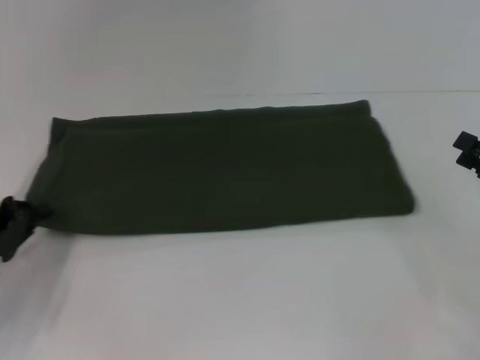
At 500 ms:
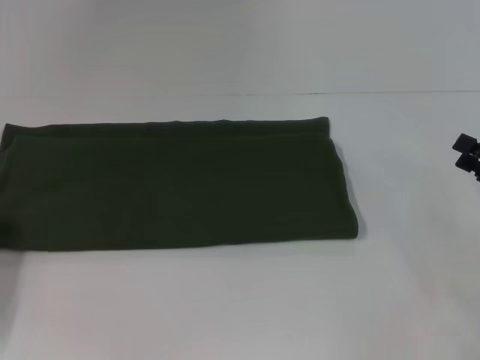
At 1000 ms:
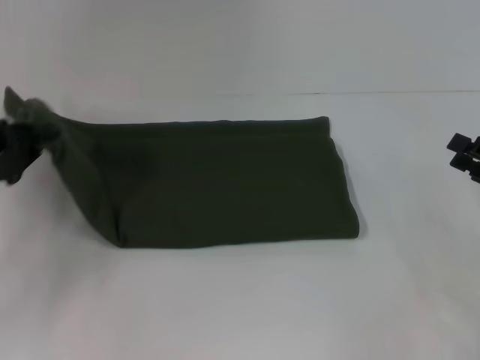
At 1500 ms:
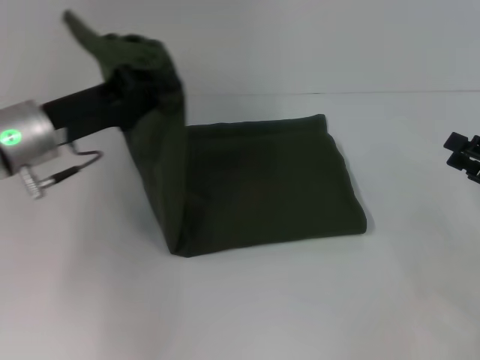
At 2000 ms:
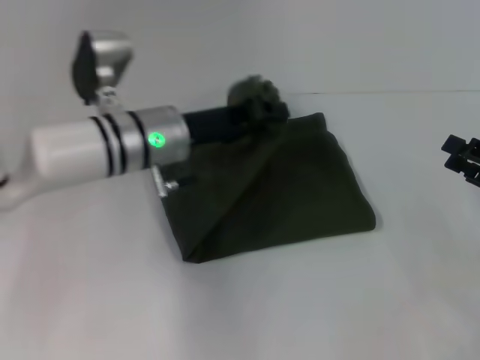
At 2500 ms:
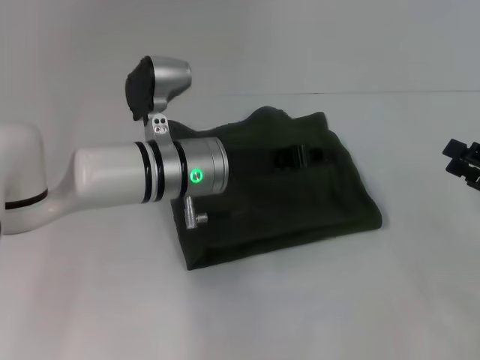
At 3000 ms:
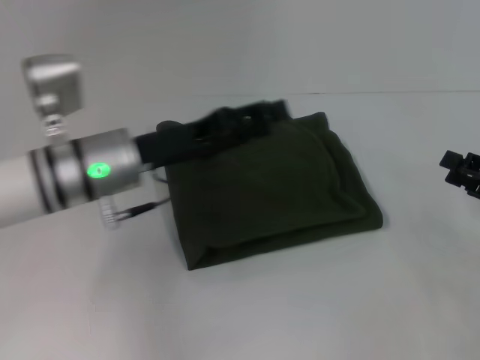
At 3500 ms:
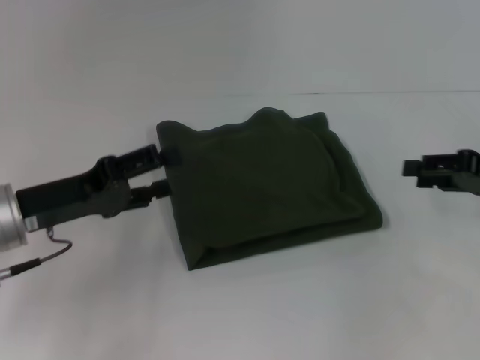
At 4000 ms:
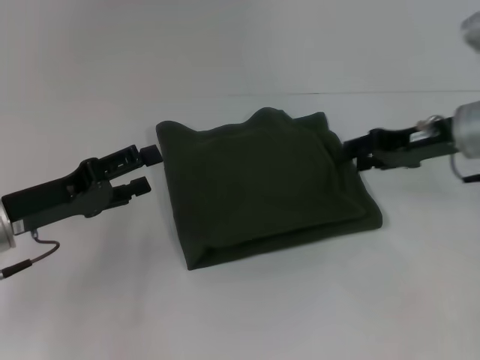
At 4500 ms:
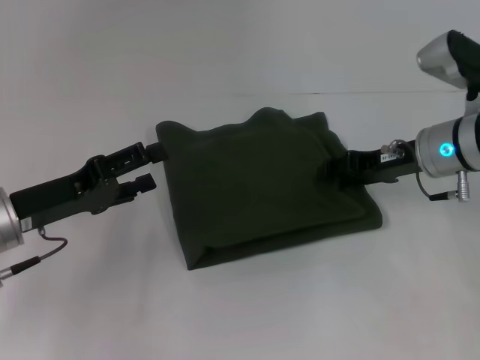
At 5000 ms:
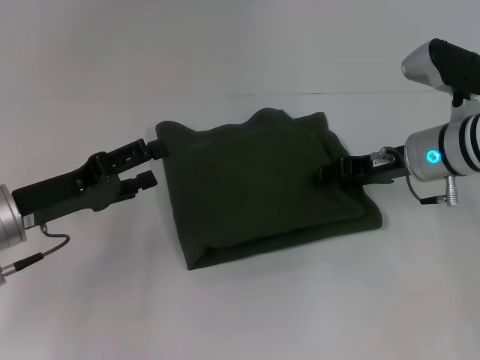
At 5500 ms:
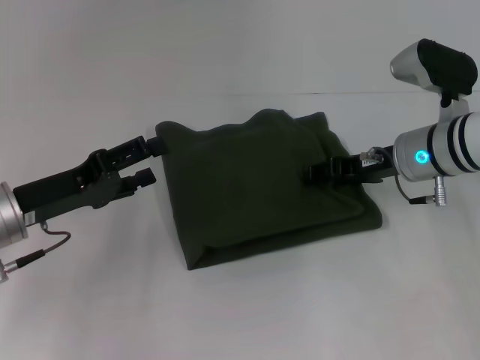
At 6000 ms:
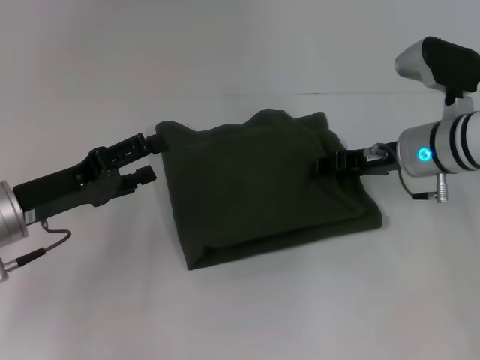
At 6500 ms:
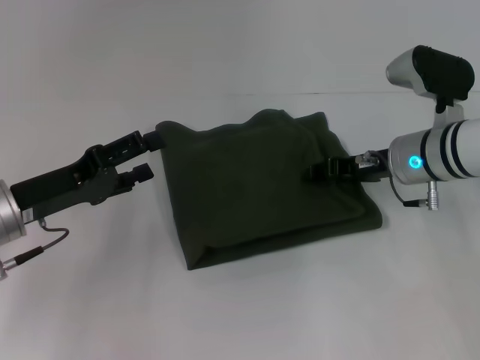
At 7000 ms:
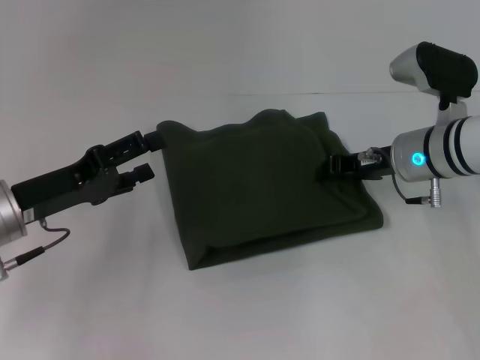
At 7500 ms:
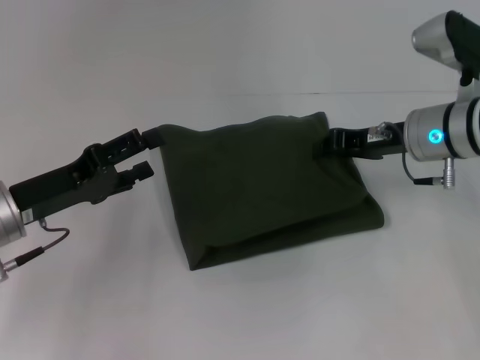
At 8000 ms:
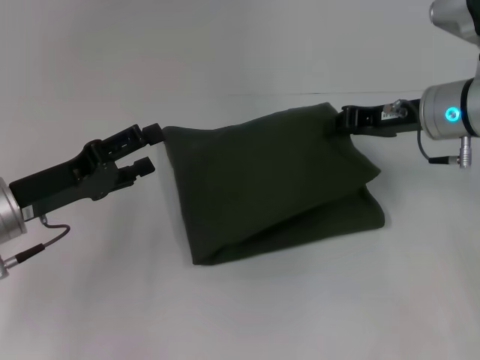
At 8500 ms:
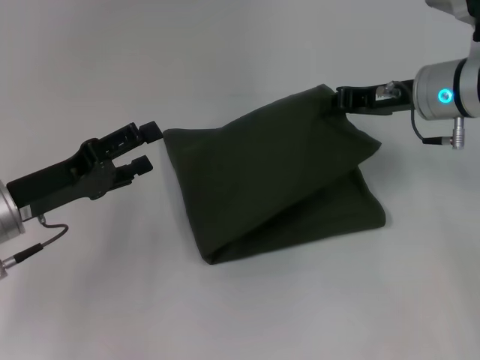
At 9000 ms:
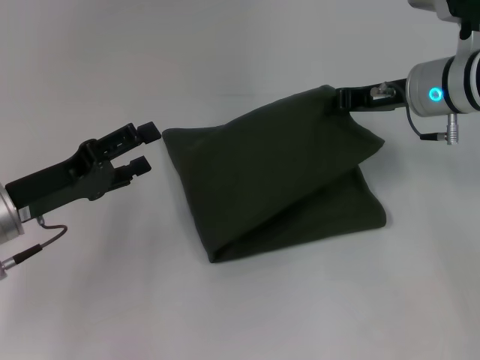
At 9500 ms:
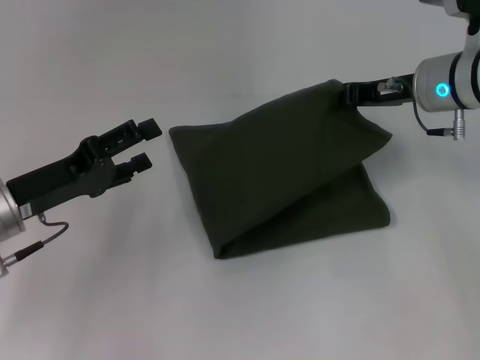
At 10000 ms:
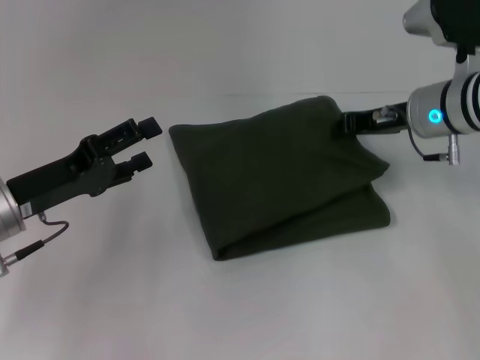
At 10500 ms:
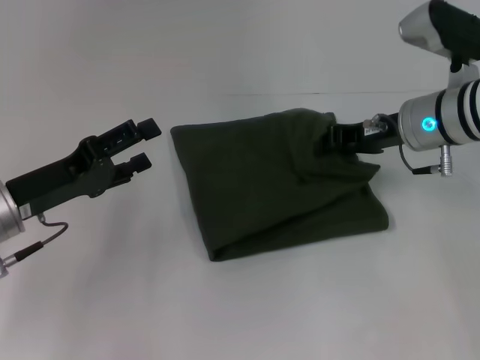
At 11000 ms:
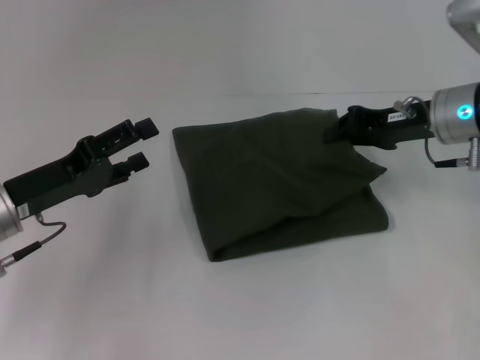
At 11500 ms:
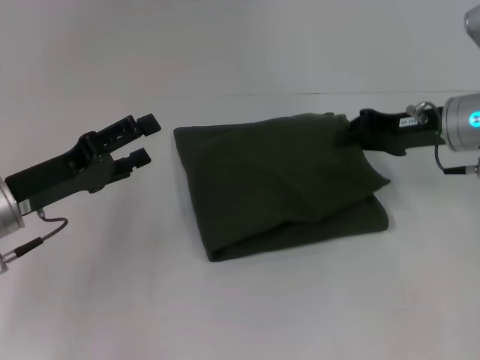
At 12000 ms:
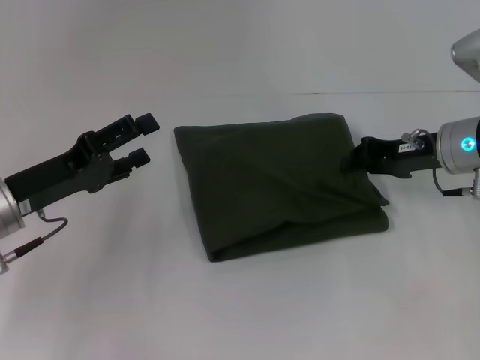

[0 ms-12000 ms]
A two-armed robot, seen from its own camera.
Step, 0 ms to 2500 ms: Fold the clothes with your left hand.
0 ms to 2000 ms: The left gripper is displaced to the right and forward by about 25 cm.
2000 ms to 4000 ms: The right gripper is displaced forward, to the left and upward by approximately 15 cm. The left gripper goes approximately 20 cm to the left and backward, and opens up.
4000 ms to 6000 ms: The right gripper changes place by about 5 cm.
6000 ms to 8000 ms: The right gripper shifts some 5 cm upward, and closes its fingers.
8000 ms to 10000 ms: The grippers make only small movements.

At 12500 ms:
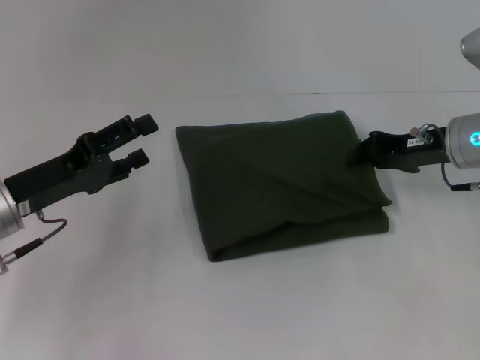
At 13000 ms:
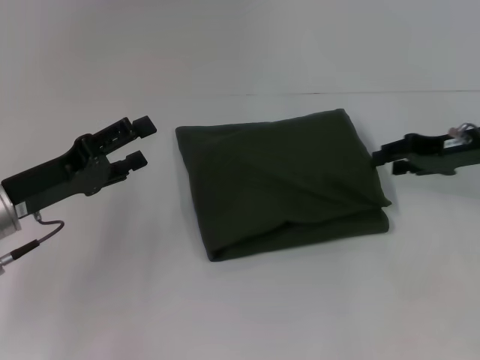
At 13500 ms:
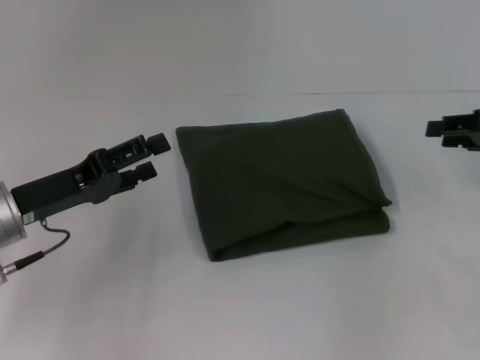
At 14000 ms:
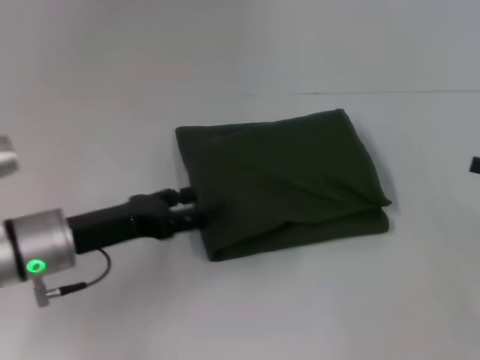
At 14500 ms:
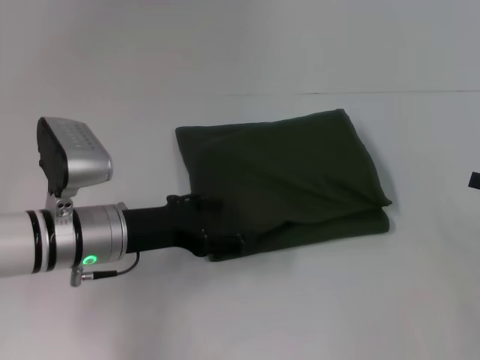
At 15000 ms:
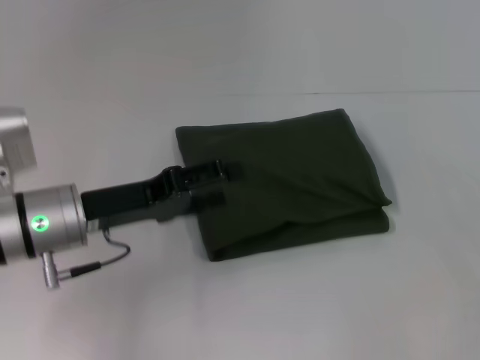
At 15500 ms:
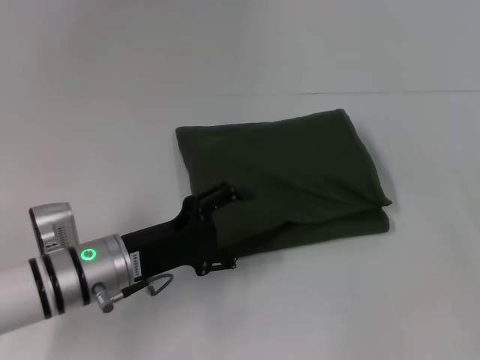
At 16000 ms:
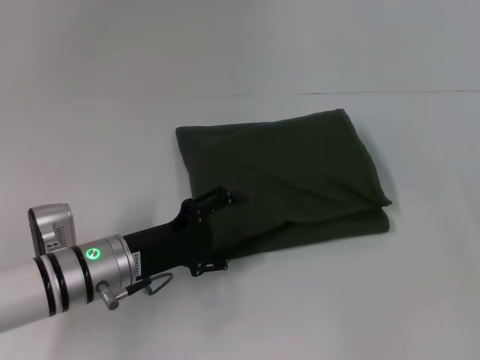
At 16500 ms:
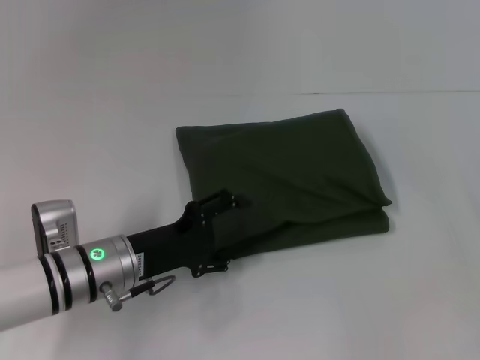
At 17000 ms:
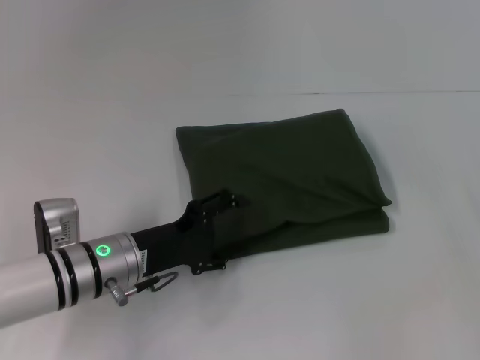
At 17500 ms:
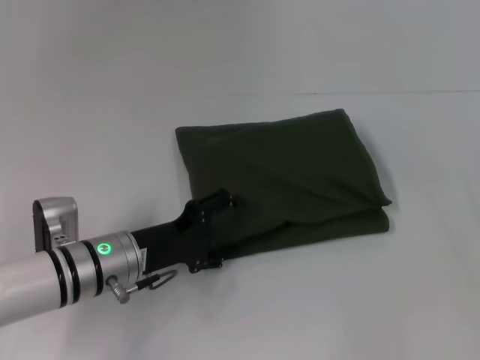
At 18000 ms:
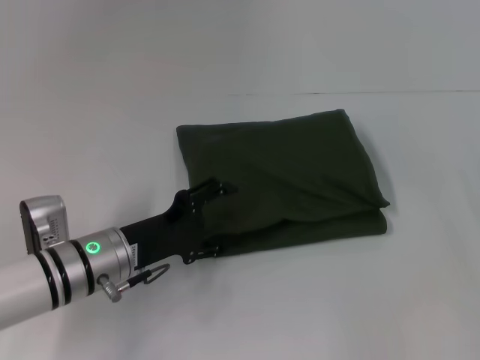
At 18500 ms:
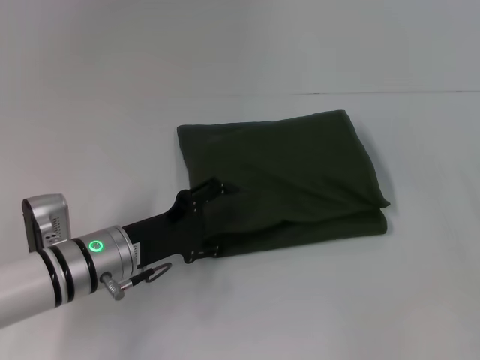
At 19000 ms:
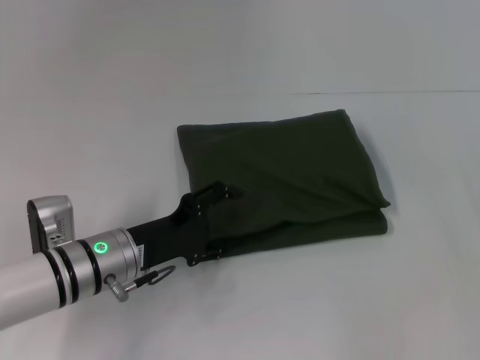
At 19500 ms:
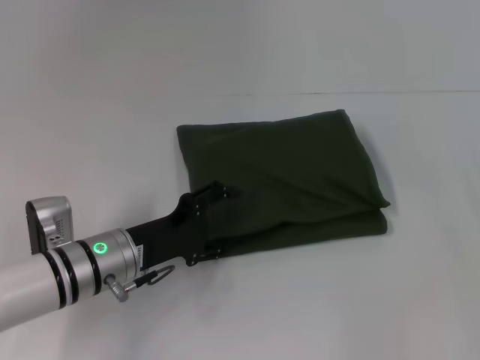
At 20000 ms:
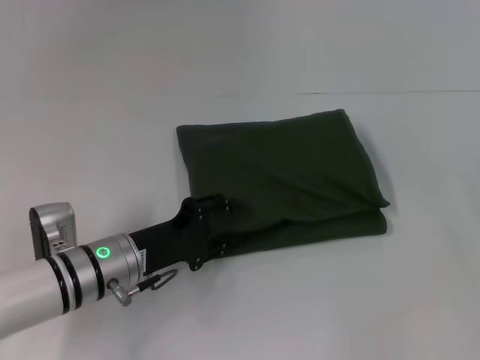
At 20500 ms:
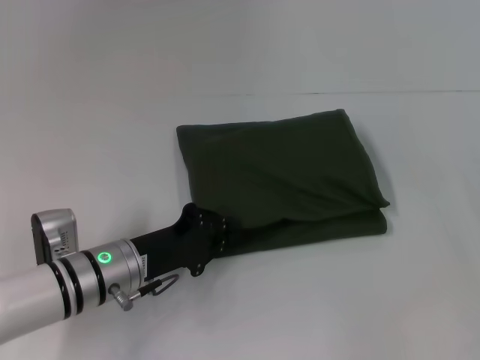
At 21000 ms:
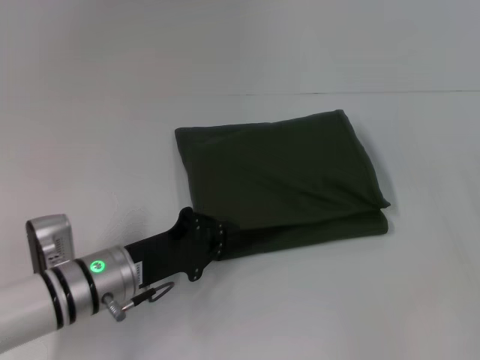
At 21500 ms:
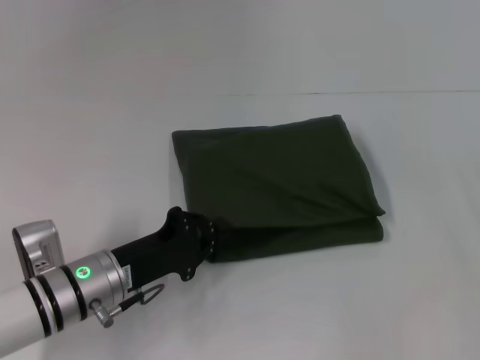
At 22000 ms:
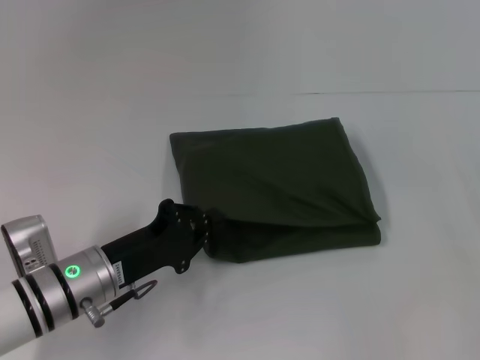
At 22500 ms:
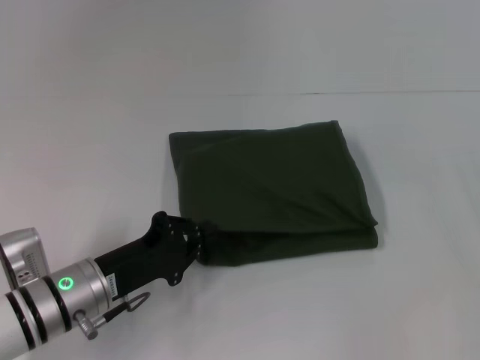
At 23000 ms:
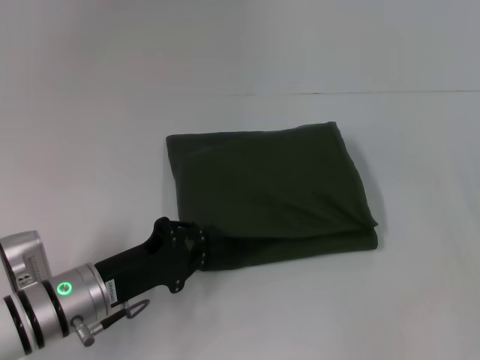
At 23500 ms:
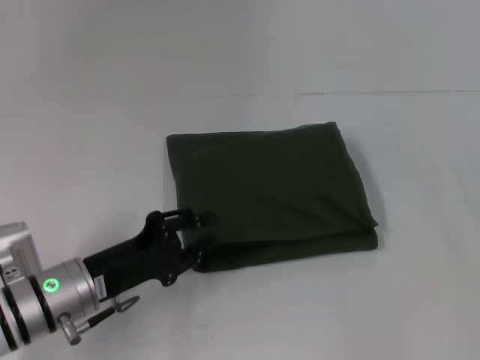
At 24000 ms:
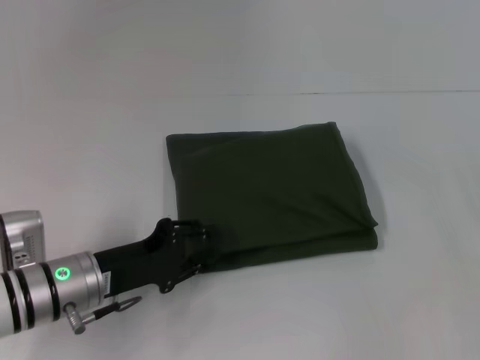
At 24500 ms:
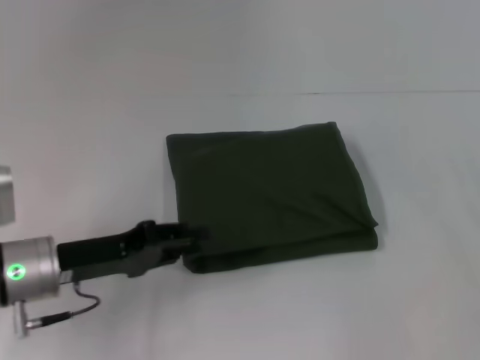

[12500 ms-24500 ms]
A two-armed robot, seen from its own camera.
12500 ms to 14500 ms: The left gripper heads to the right, covering some 10 cm. The right gripper goes approximately 20 cm to the right and backward, and opens its fingers.
16500 ms to 18500 ms: The grippers make only small movements.
18500 ms to 20500 ms: The left gripper closes.
20500 ms to 22500 ms: There are only small adjustments of the grippers.
22500 ms to 24500 ms: The left gripper moves upward, about 5 cm, and opens.

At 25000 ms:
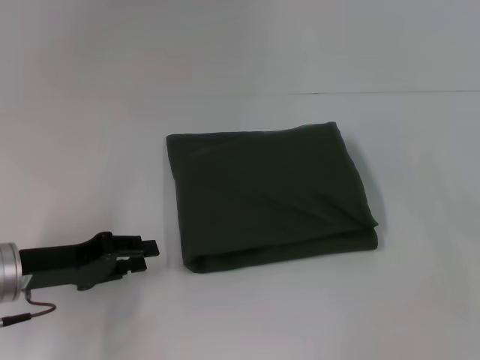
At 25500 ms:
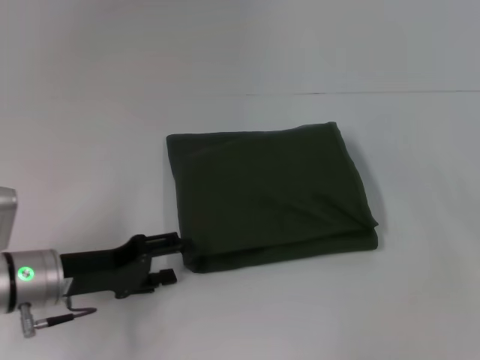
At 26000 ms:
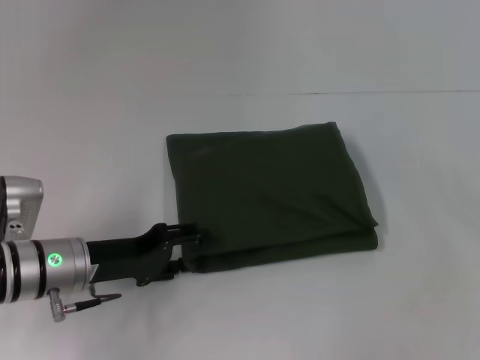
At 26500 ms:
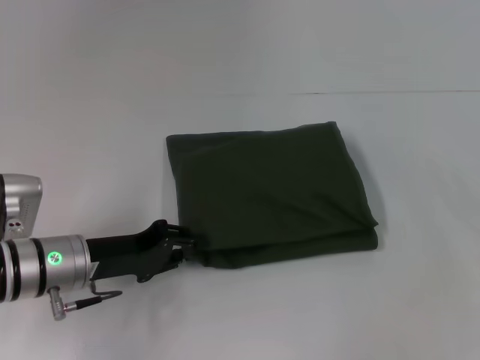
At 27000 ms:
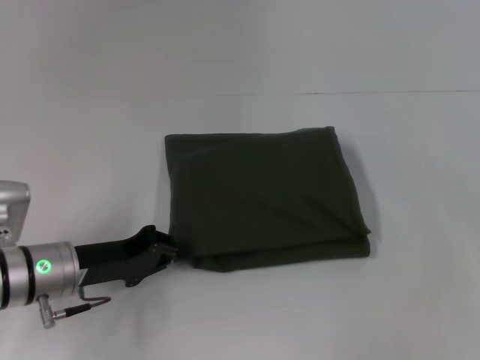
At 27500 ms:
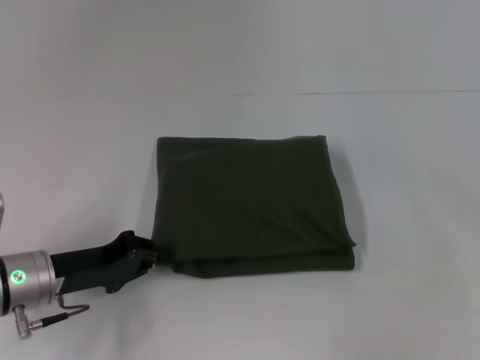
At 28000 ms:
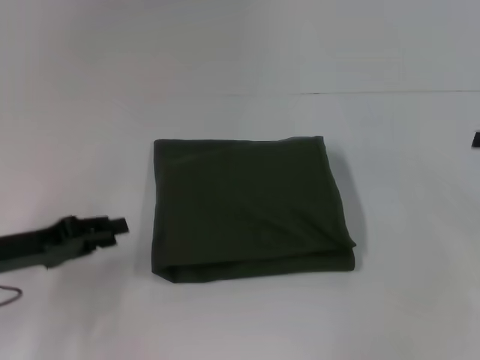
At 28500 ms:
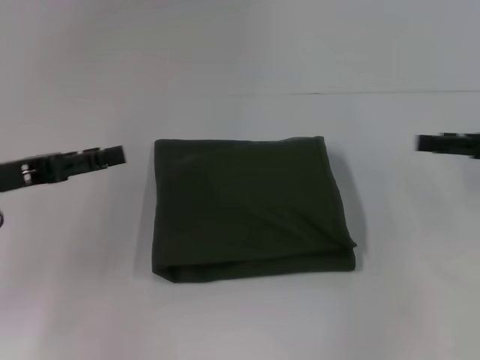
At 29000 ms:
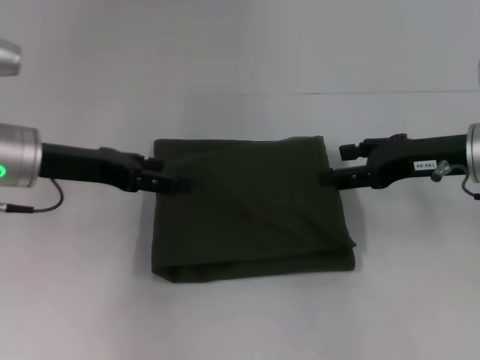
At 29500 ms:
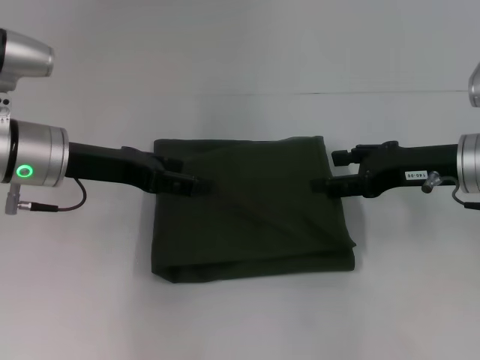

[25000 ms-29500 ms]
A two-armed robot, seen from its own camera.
25000 ms to 27000 ms: The left gripper shifts by roughly 5 cm, and closes its fingers.
27000 ms to 29500 ms: The left gripper travels upward and forward by some 15 cm, and opens up. The right gripper goes approximately 15 cm to the left, and opens its fingers.
